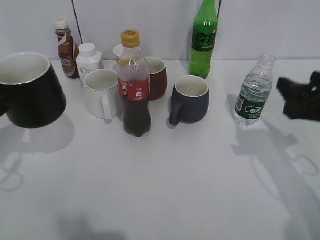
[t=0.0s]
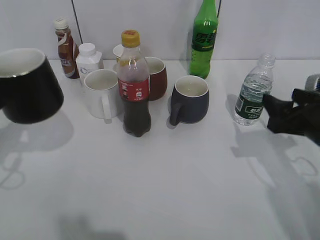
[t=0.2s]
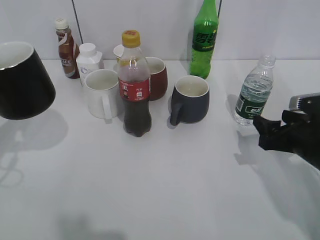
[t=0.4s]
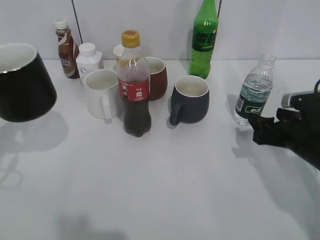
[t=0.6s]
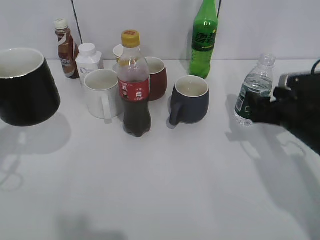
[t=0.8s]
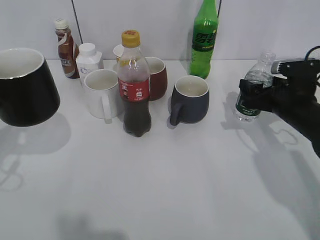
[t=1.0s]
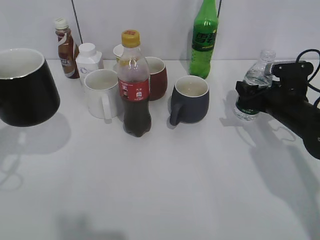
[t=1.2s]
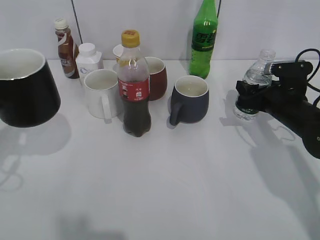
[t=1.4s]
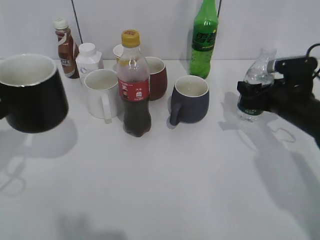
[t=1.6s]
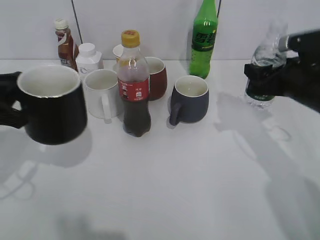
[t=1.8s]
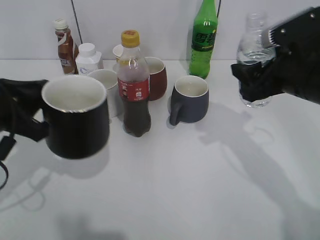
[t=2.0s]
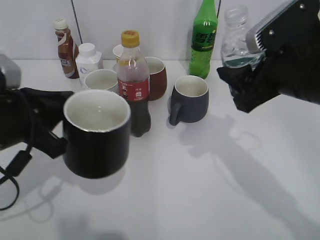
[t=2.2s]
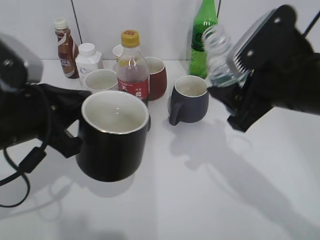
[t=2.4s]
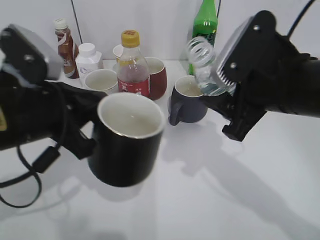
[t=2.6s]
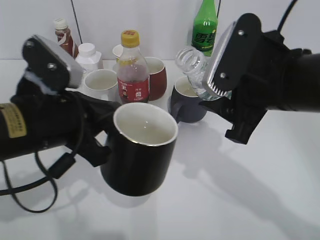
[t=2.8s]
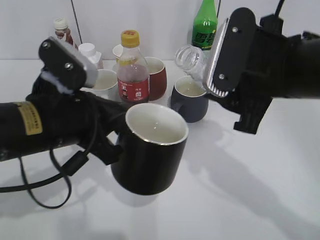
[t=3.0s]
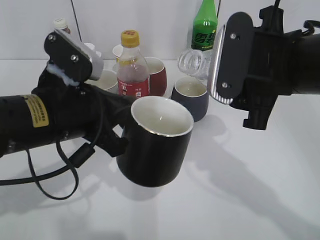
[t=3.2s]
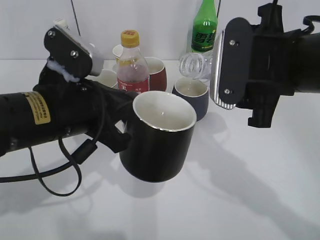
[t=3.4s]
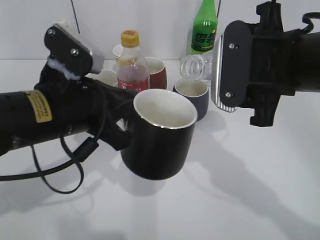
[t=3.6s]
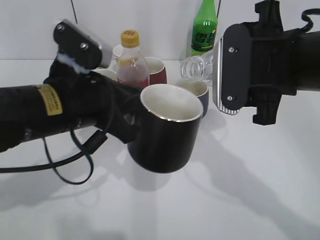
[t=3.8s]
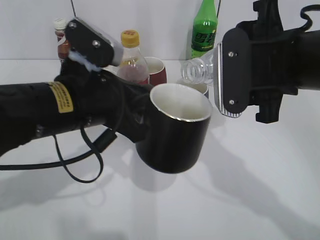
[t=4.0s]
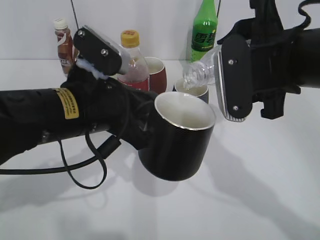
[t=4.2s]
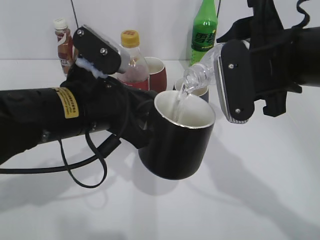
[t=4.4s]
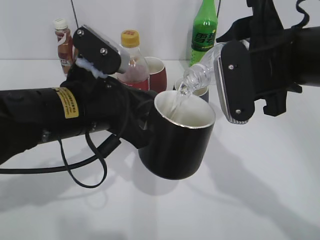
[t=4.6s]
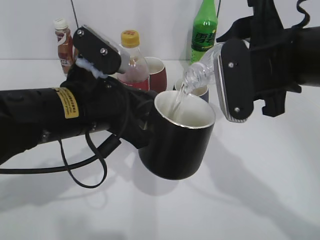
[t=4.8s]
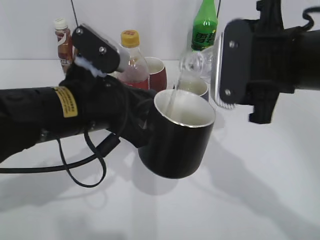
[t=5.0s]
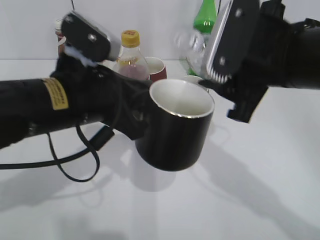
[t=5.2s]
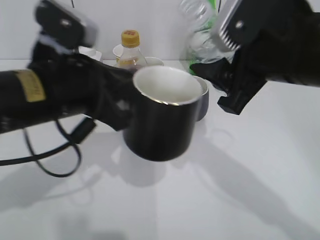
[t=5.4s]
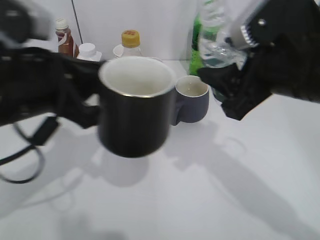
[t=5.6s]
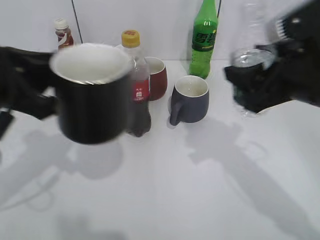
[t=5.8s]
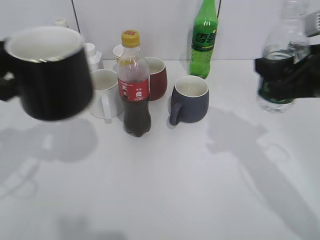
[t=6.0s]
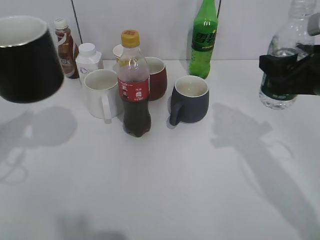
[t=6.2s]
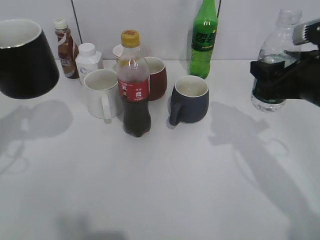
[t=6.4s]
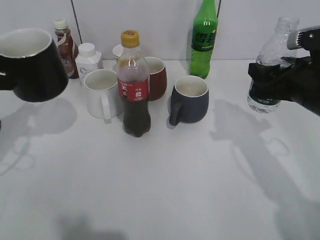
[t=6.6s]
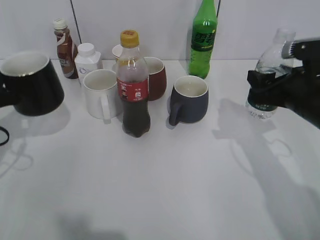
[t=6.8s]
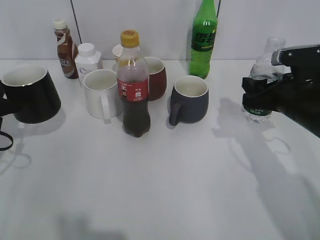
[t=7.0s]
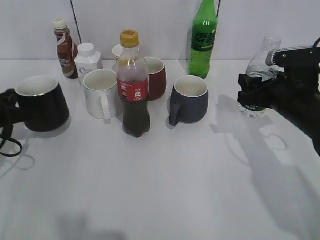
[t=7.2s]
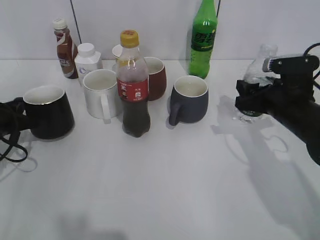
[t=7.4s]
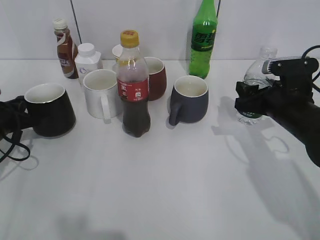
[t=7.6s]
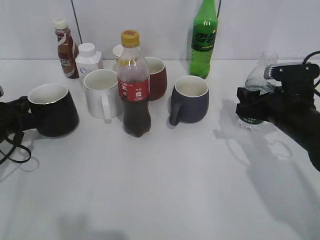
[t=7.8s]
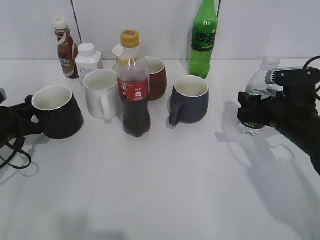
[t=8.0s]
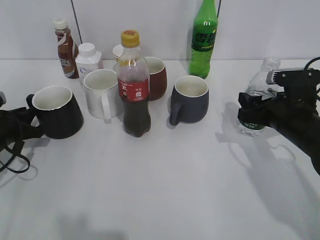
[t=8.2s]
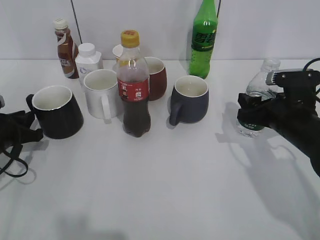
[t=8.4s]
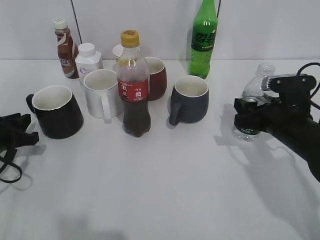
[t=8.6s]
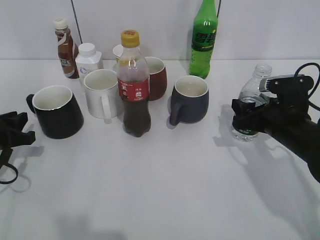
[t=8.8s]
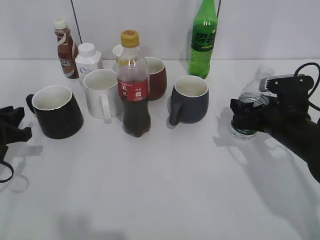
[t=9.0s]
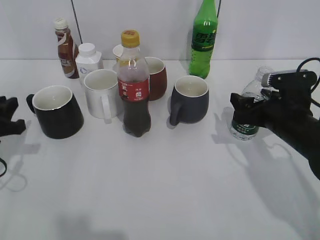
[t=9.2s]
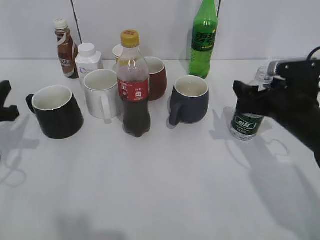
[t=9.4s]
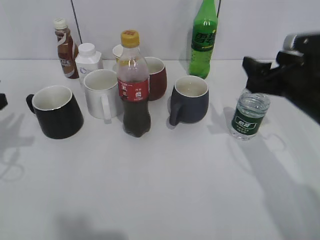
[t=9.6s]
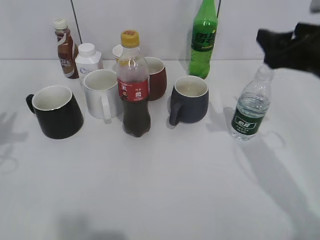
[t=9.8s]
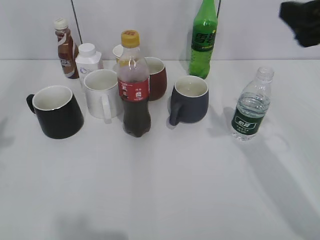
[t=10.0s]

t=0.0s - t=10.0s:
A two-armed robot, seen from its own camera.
Step, t=0.0s - t=1.2s: Grasp the bottle with water with right gripper.
Step, t=1.6s - t=5.0s: Pour the water from bottle to cup with right gripper.
Step, t=5.2s - t=9.4s: Place the water bottle on the table with right gripper.
t=0.0s - t=1.4s: The right gripper is displaced forward and downward by some 15 cm, and closes.
t=1.4s - t=2.8s: The left gripper goes approximately 15 cm to the right. Meanwhile the right gripper shifts roughly 25 cm upward, backward and to the left.
t=2.8s - t=4.2s: The left gripper moves some 5 cm.
t=4.2s - t=5.8s: The left gripper travels to the left by roughly 10 cm.
t=5.8s - t=7.2s: The right gripper moves downward and forward, some 15 cm, while the left gripper moves downward, to the left and forward, about 25 cm.
t=7.2s - t=8.6s: There are only small adjustments of the grippers.
t=8.6s - t=10.0s: Both grippers move upward, about 20 cm. The right gripper opens up; the left gripper opens its fingers.
